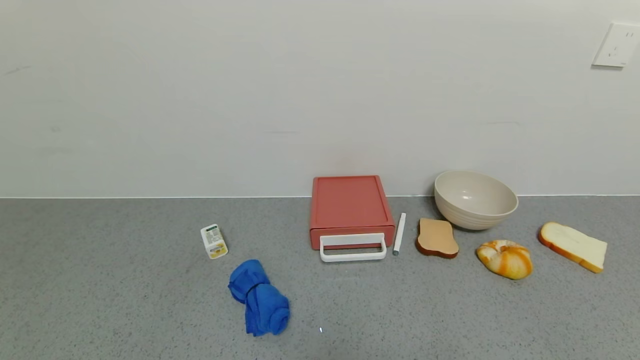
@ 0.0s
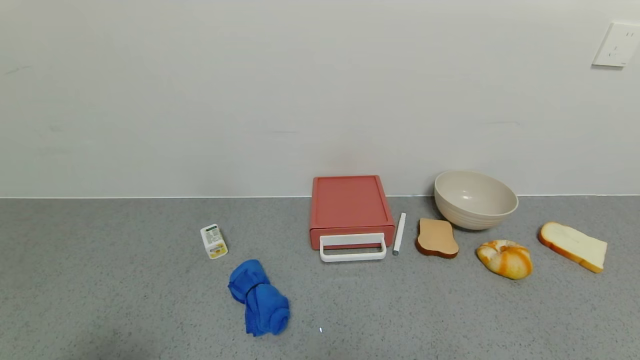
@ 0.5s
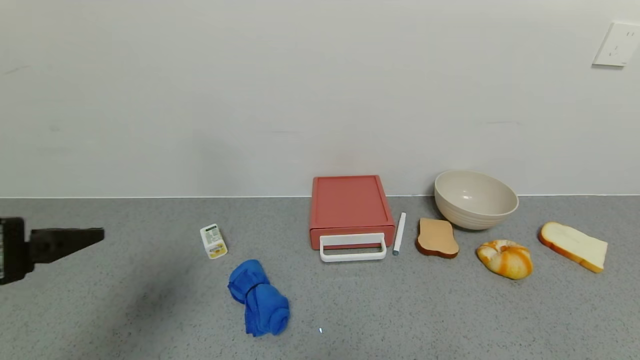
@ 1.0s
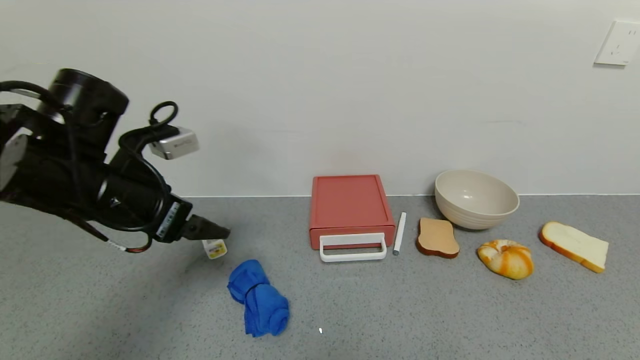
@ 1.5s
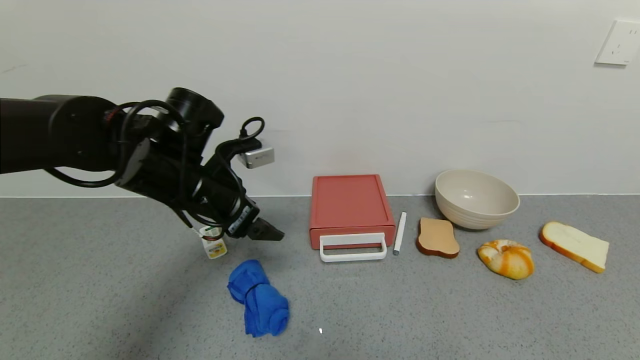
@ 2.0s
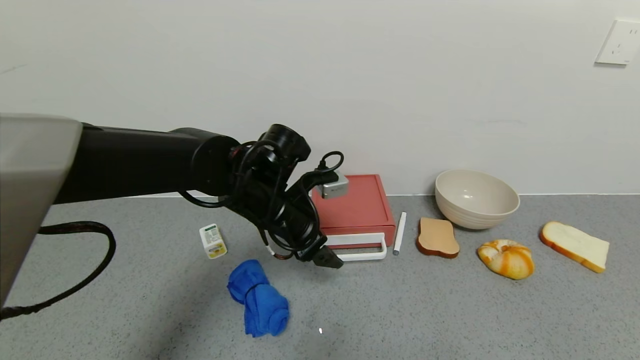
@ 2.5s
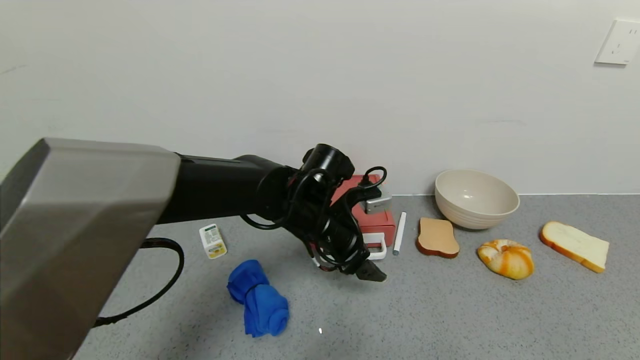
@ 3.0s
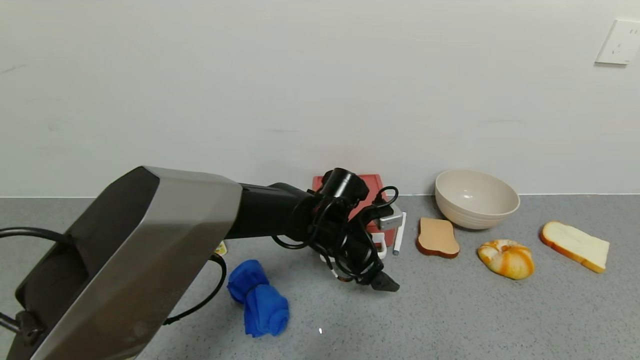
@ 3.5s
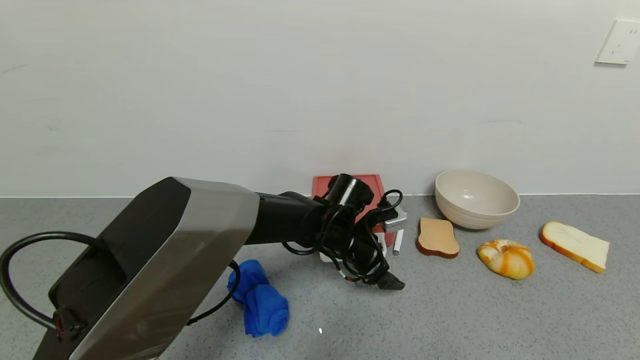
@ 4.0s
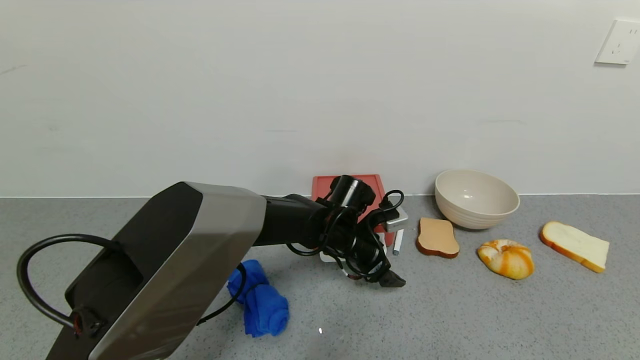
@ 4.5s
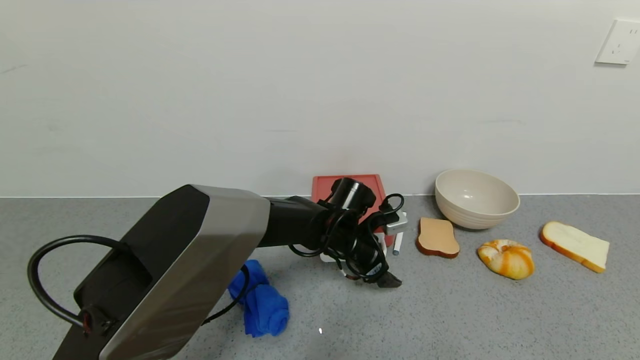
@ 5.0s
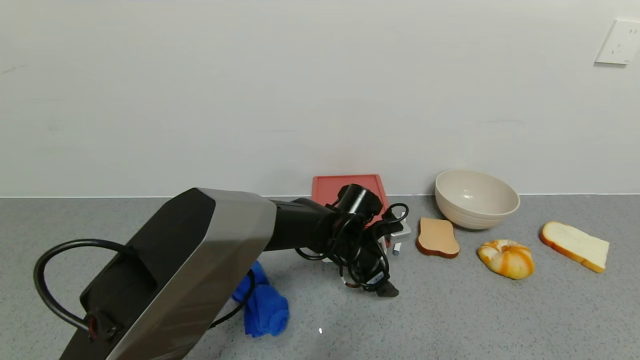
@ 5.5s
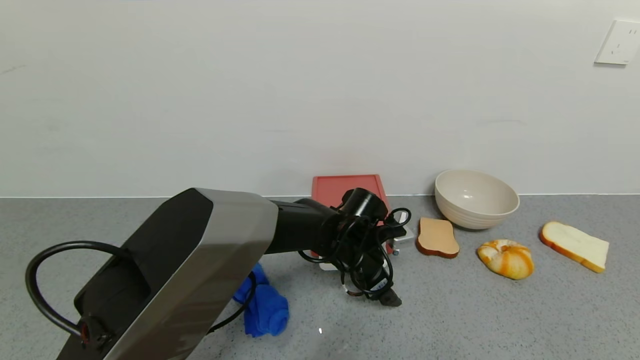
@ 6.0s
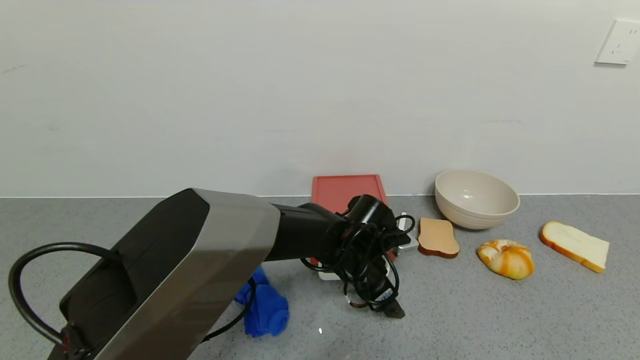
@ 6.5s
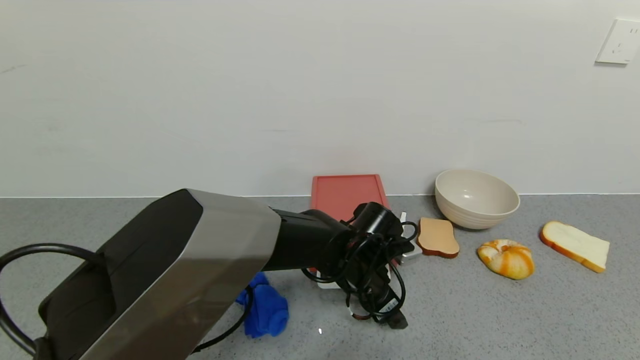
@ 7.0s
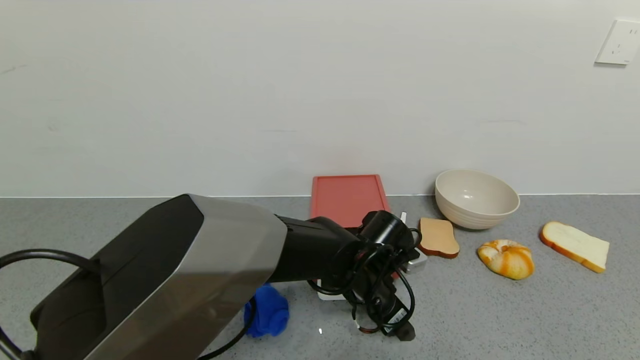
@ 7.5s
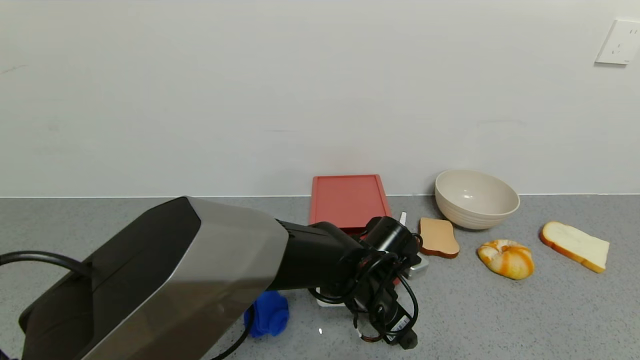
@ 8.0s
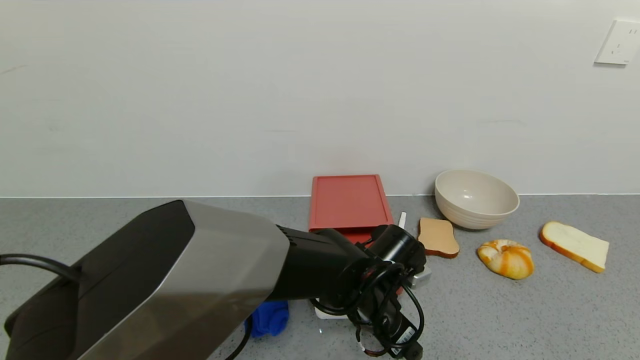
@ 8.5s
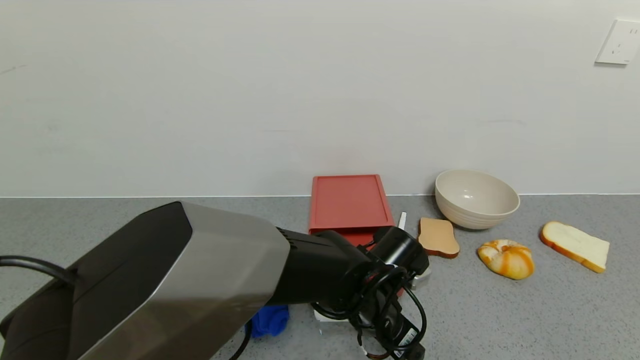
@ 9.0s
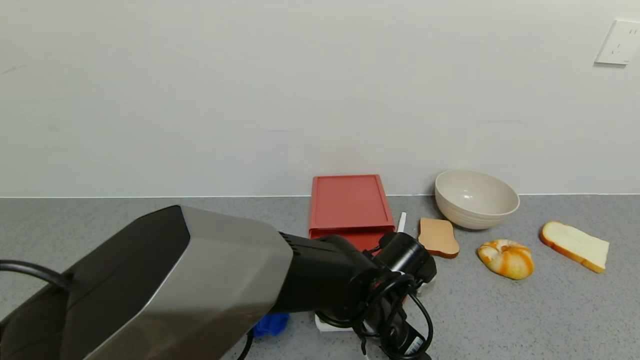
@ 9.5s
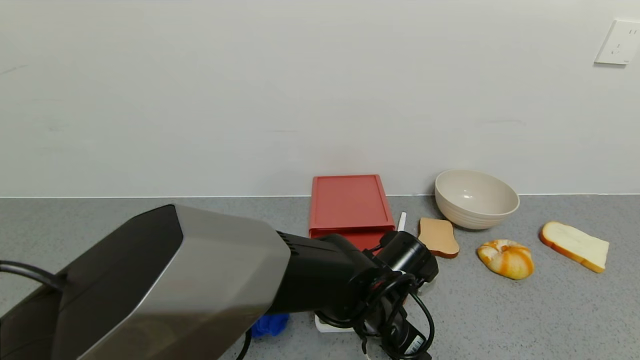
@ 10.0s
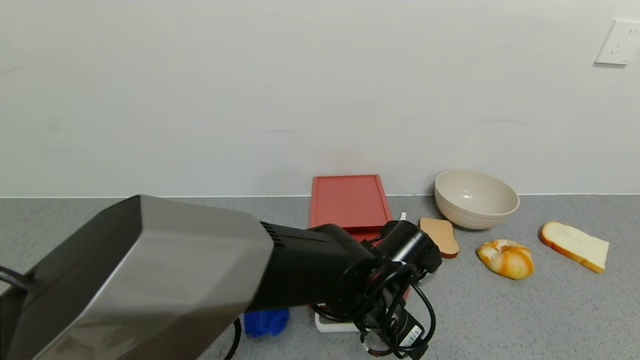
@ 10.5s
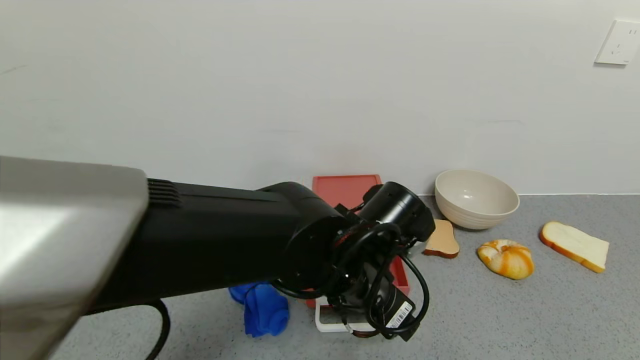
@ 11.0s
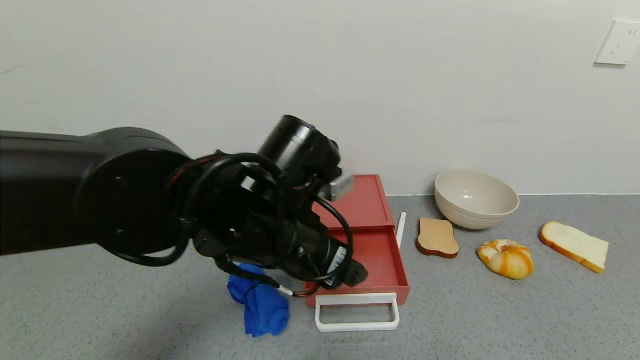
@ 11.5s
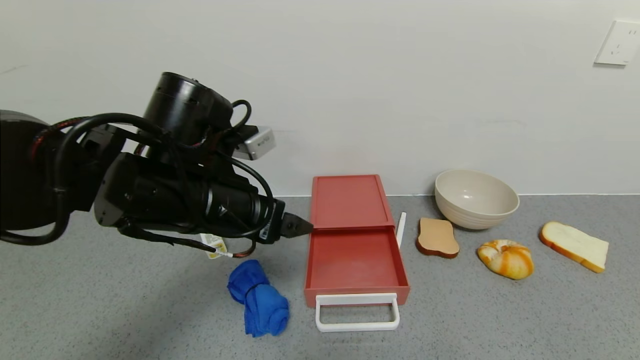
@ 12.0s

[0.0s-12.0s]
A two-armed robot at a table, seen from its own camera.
Task of the whole recording: use the gripper to open the drawer and close the red drawer.
Step, 0.0s to 11.0s: Open the red drawer with the left gripper.
0.0s to 2.0s: The left gripper shifts some 35 cm forward.
2.0s to 4.0s: The left gripper is displaced to the right and downward by approximately 25 cm.
4.0s to 6.0s: The grippers make only small movements.
6.0s to 8.0s: The left gripper goes roughly 5 cm backward.
8.0s to 10.0s: The grippers make only small movements.
10.0s to 12.0s: The left gripper is displaced to the left and upward by approximately 25 cm.

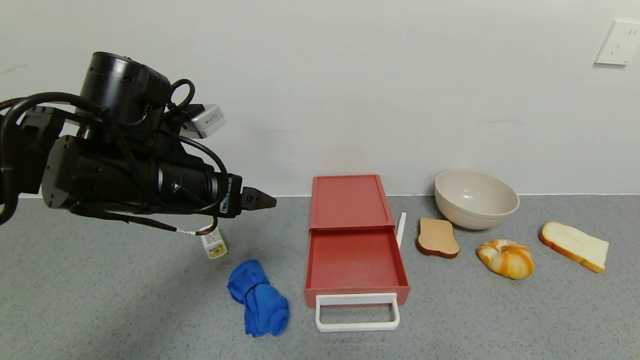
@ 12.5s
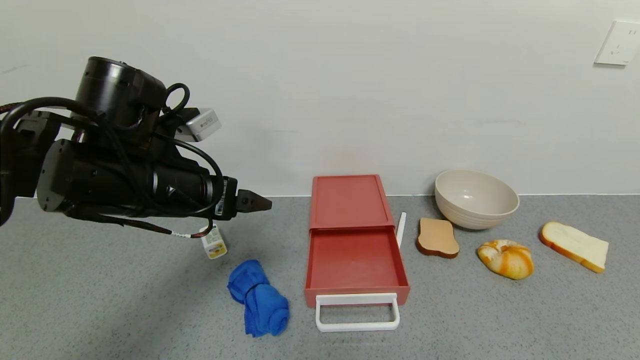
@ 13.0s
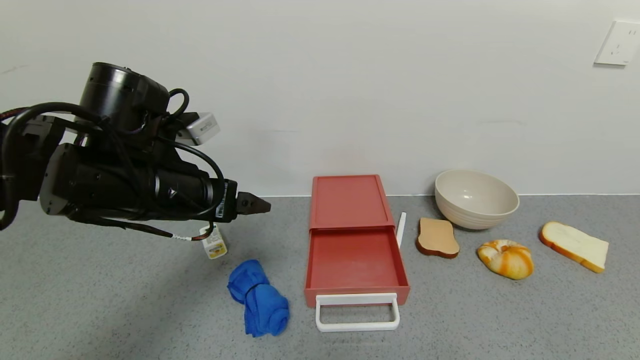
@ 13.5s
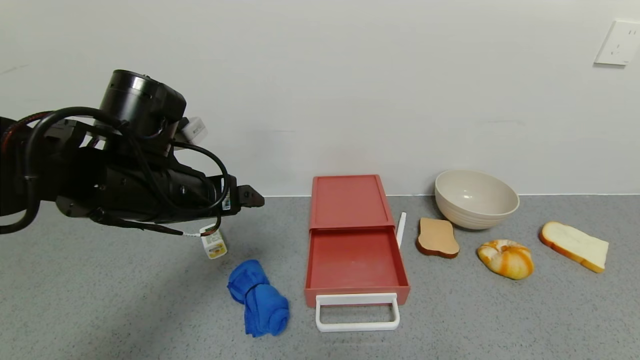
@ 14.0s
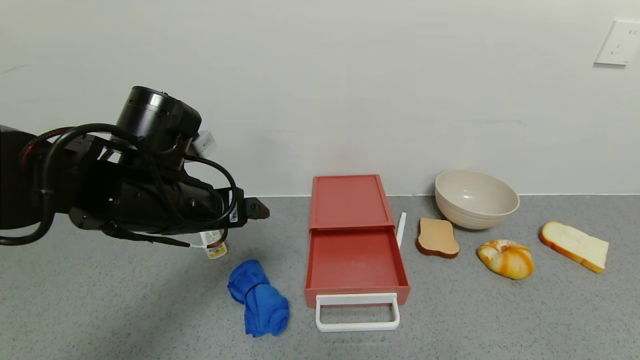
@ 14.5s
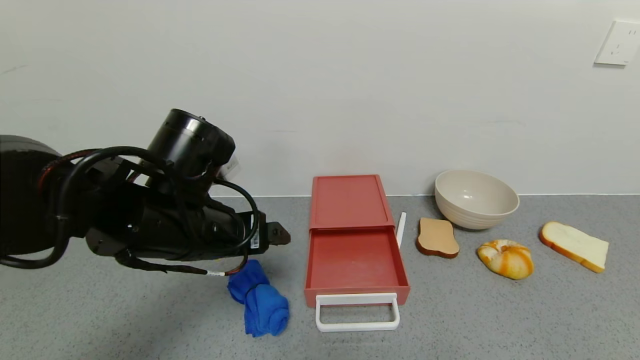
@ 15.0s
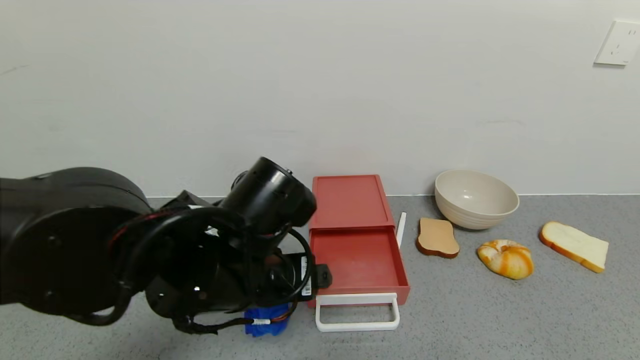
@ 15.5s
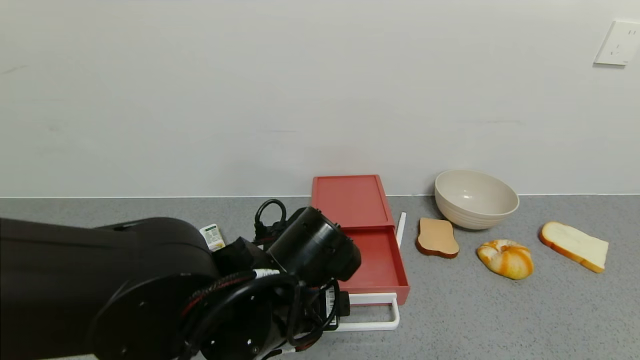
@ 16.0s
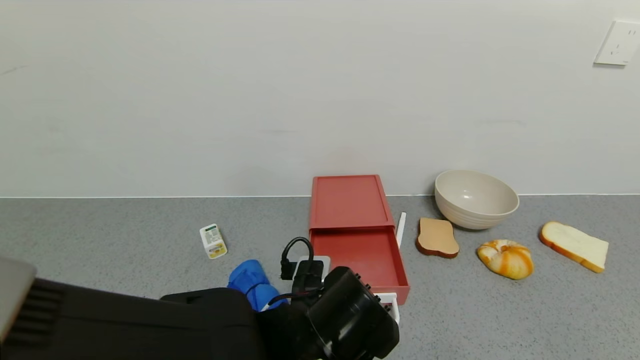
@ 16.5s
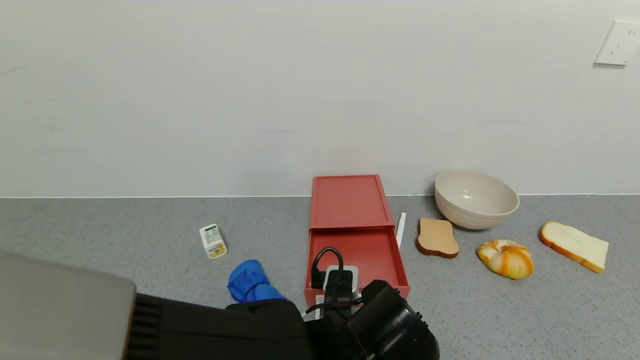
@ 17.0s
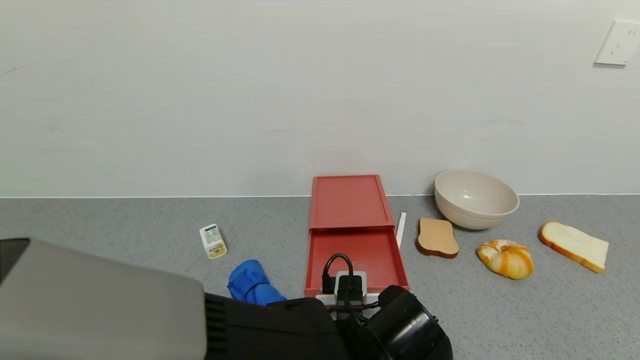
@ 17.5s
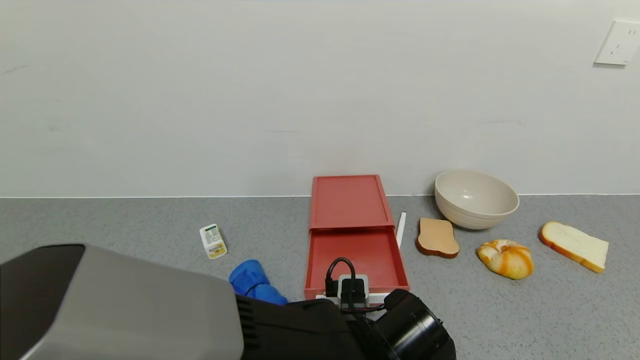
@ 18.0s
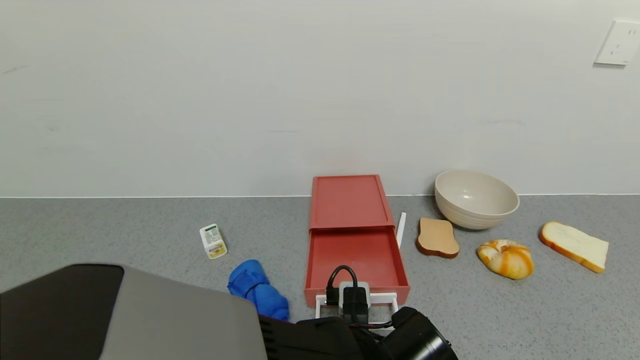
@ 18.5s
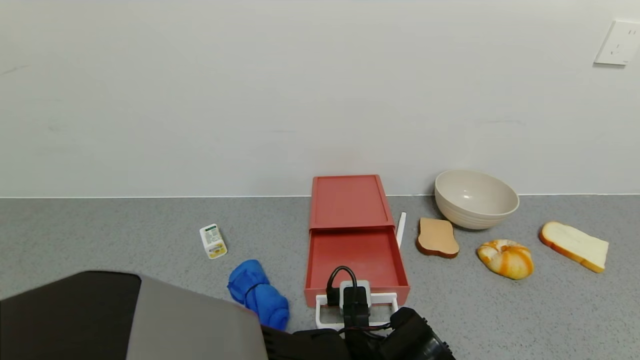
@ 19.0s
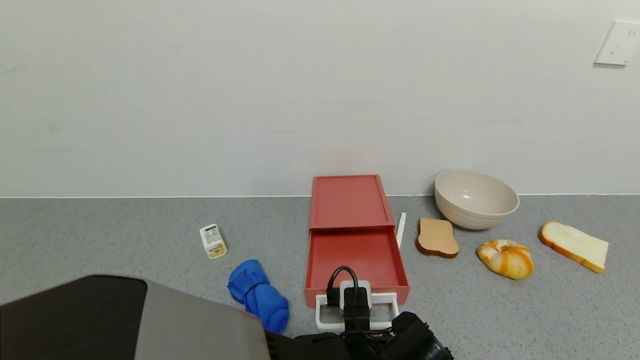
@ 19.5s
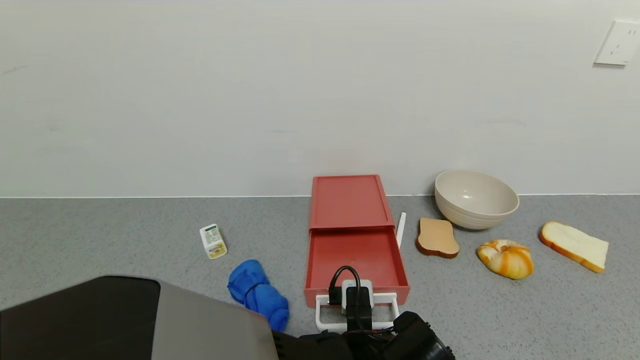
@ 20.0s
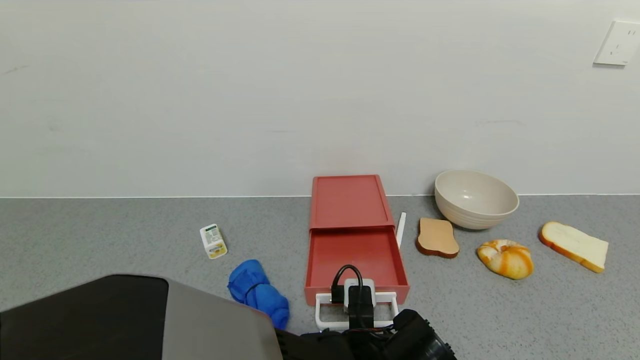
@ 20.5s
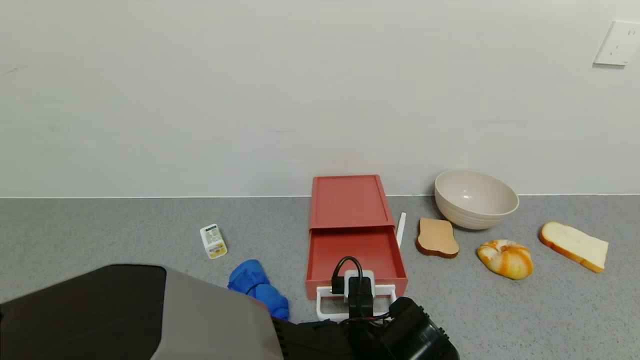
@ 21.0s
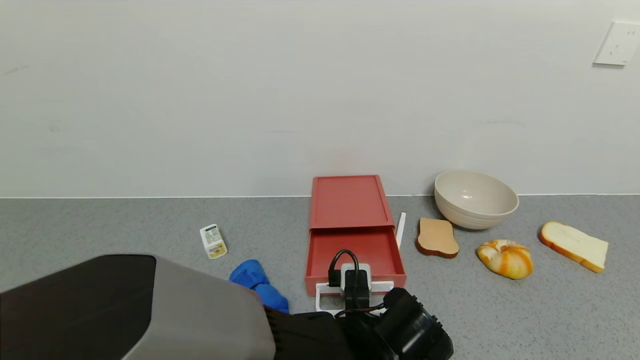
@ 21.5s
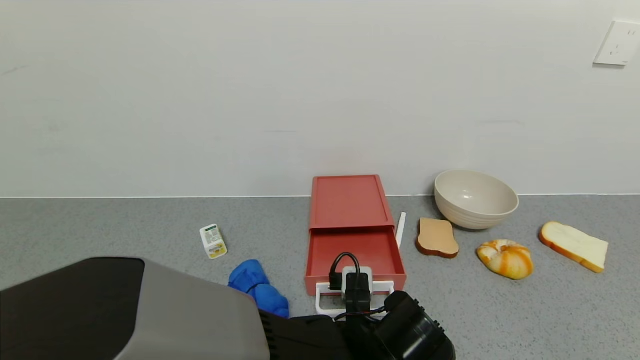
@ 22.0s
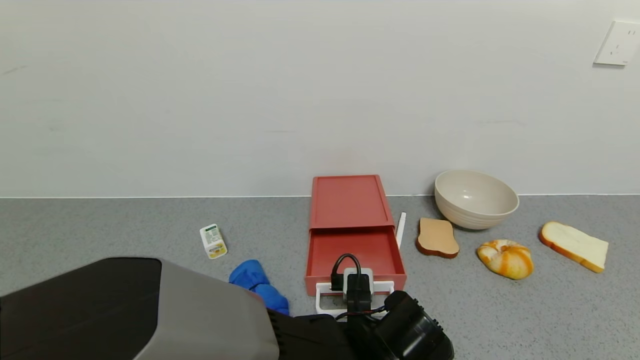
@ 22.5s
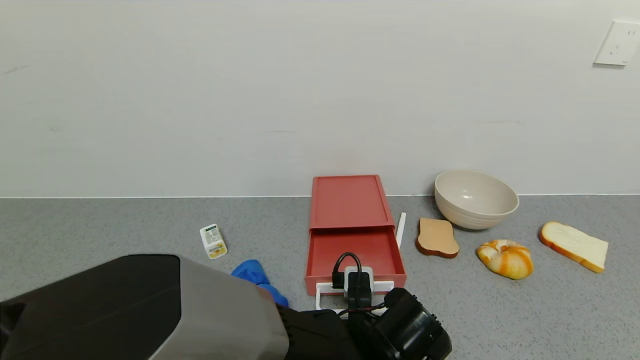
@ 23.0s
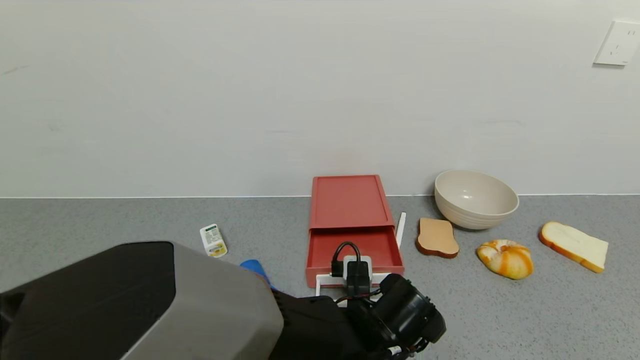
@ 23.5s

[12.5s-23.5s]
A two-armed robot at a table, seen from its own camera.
Task of the whole recording: use the gripper to open the drawer and close the red drawer.
12.5s to 14.5s: The grippers make only small movements.
14.5s to 16.0s: The left gripper travels to the right, downward and backward by some 15 cm.
16.0s to 18.0s: The left gripper moves downward and to the right, some 10 cm.
18.0s to 23.5s: The grippers make only small movements.
